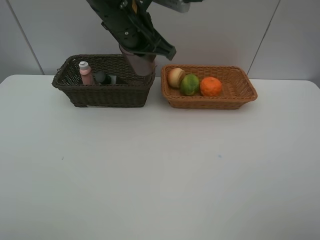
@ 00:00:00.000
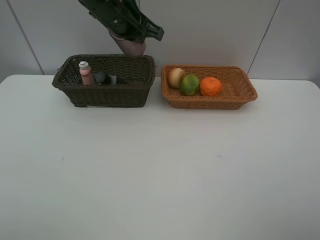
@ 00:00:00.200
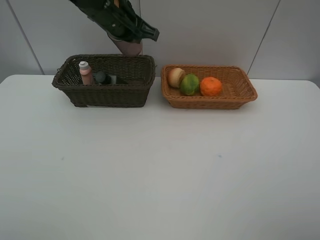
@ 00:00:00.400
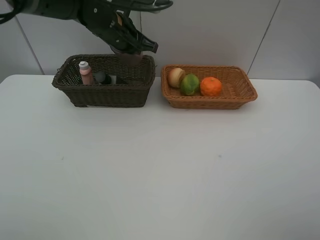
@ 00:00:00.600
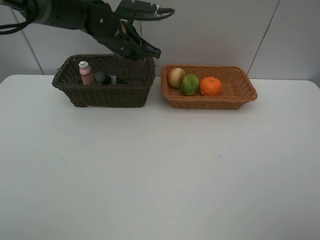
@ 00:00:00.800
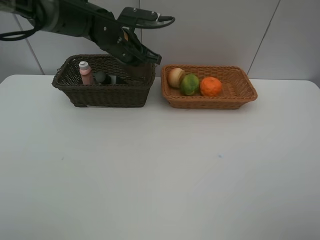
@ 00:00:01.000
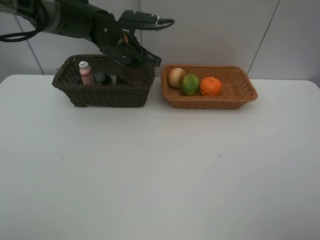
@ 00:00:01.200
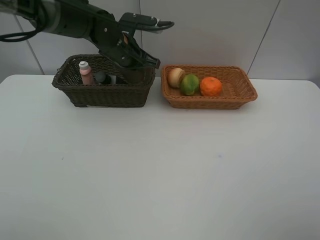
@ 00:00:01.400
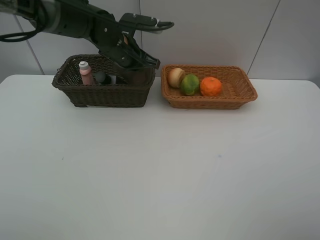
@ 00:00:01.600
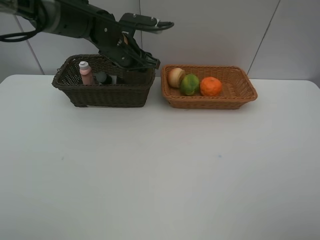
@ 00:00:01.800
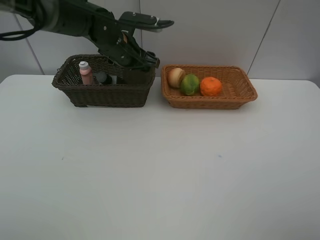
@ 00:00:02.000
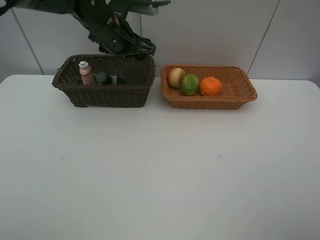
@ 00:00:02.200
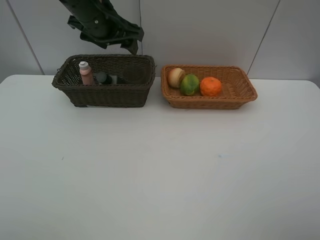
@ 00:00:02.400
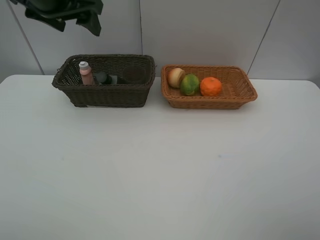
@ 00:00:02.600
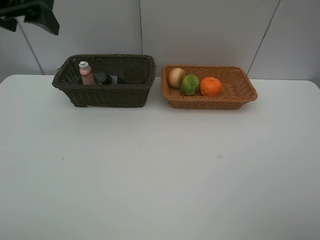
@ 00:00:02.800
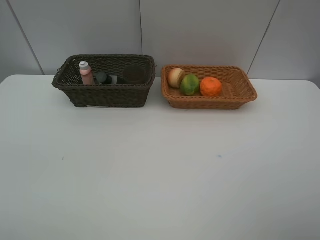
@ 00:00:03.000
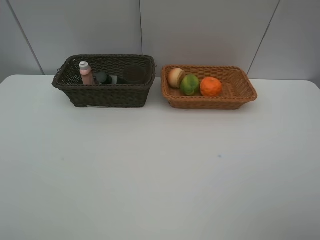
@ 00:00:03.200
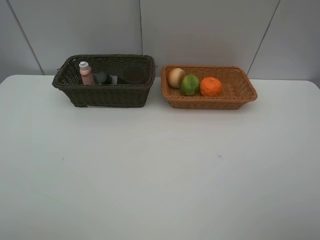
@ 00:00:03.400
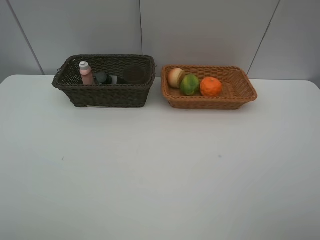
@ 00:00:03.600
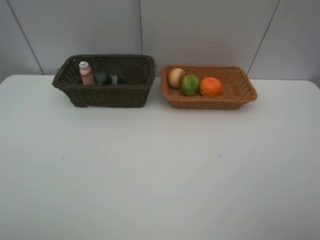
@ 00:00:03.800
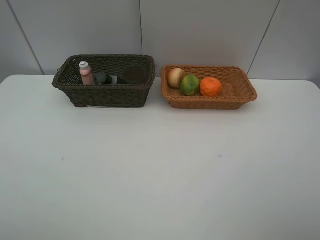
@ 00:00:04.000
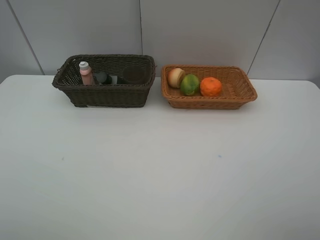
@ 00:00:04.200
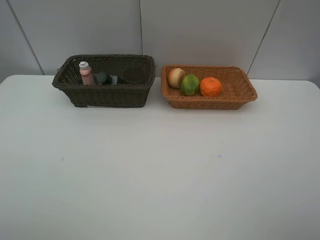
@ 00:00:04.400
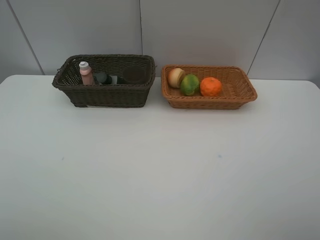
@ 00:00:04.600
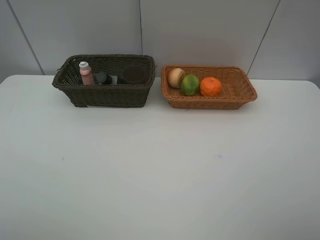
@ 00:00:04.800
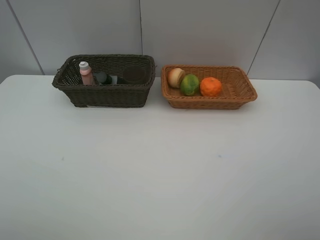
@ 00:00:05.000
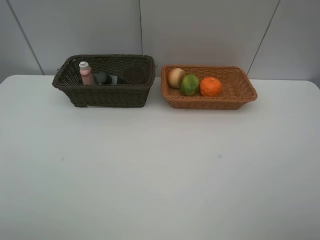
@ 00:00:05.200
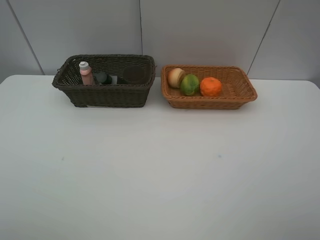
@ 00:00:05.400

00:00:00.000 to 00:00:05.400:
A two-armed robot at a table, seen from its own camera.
Task of the whole recording: place multiple objects separately in different baskets.
00:00:00.000 to 00:00:01.400: The left gripper is displaced downward and forward by approximately 10 cm.
00:00:01.400 to 00:00:02.800: The left gripper moves upward, to the left and backward, roughly 30 cm, and opens up.
00:00:02.800 to 00:00:04.000: The left gripper heads backward, covering approximately 30 cm.
